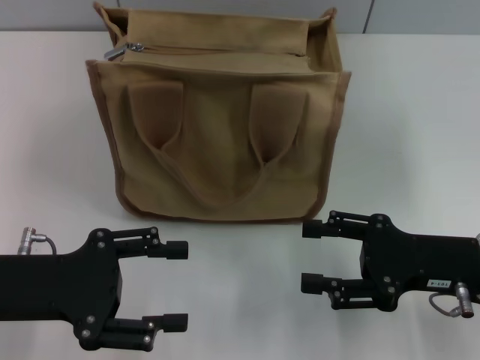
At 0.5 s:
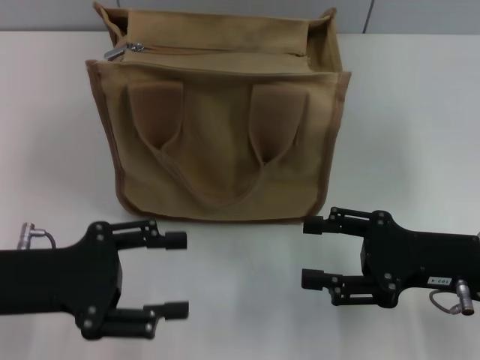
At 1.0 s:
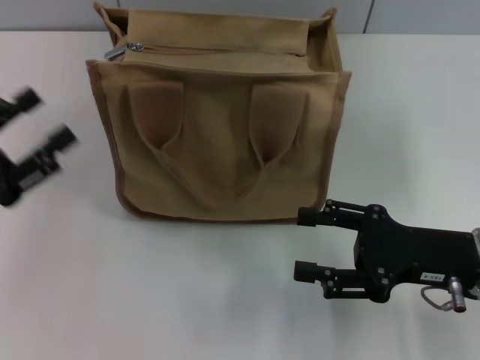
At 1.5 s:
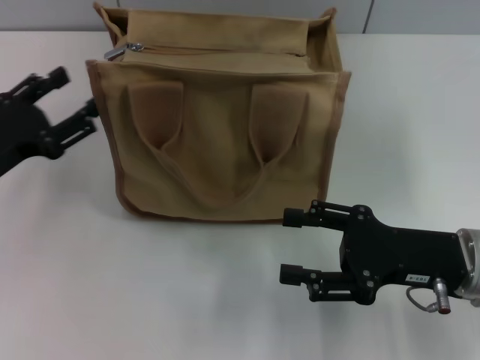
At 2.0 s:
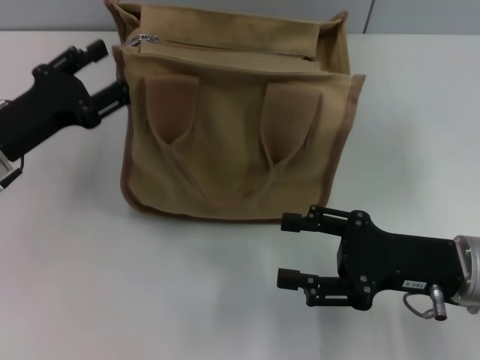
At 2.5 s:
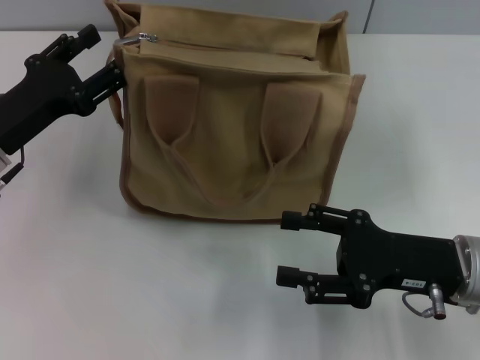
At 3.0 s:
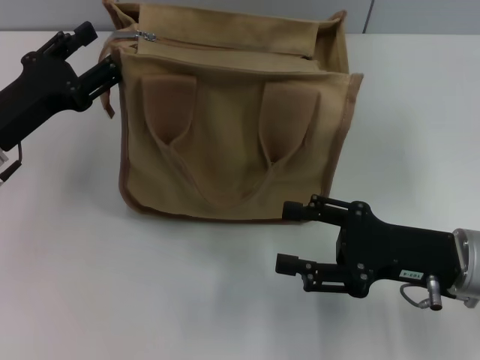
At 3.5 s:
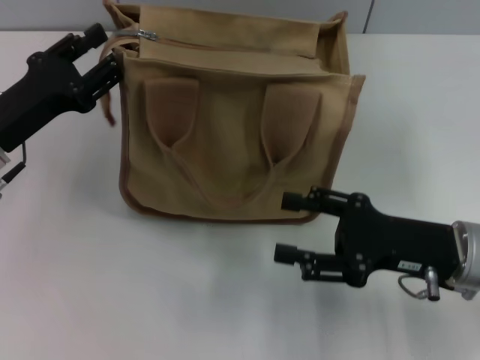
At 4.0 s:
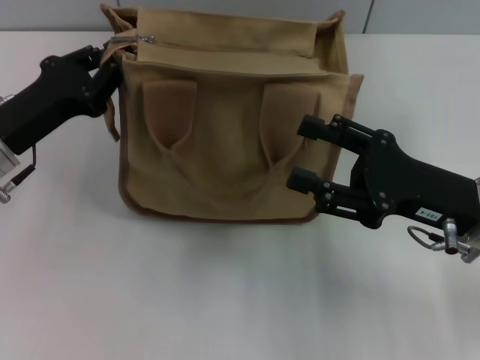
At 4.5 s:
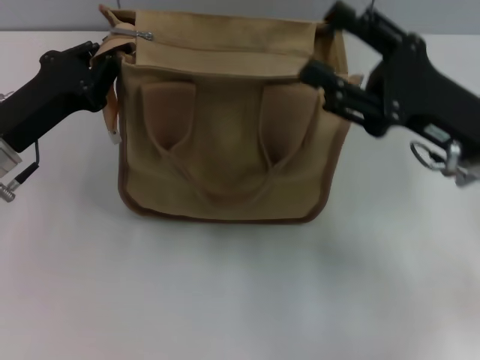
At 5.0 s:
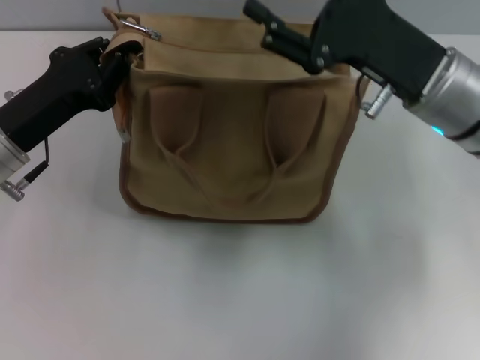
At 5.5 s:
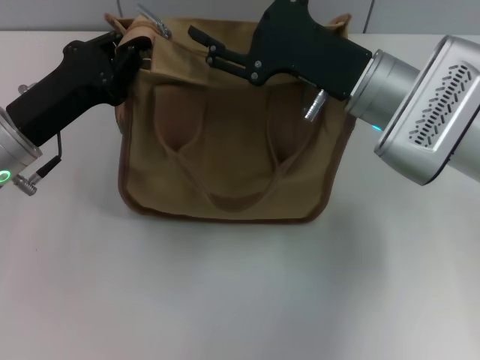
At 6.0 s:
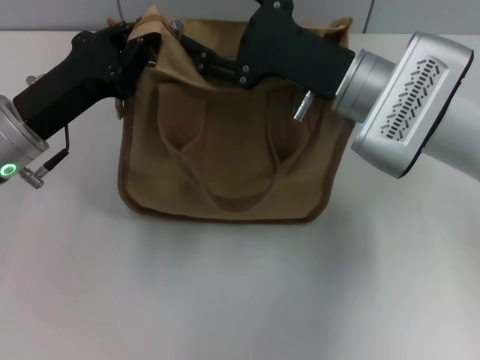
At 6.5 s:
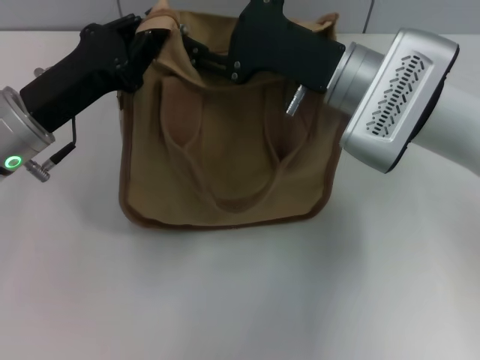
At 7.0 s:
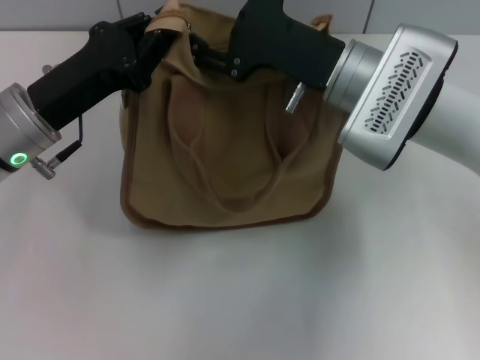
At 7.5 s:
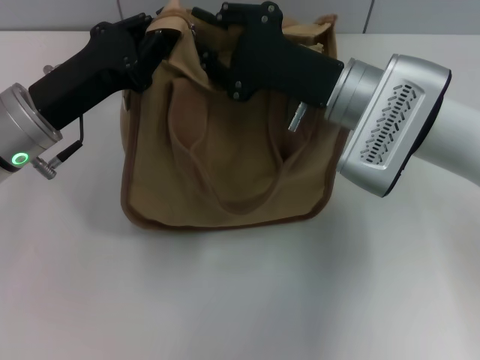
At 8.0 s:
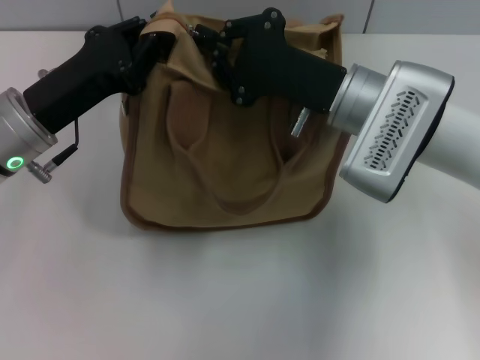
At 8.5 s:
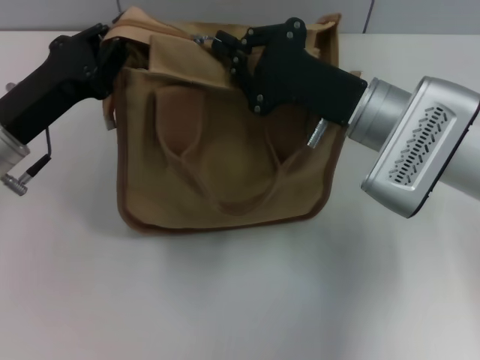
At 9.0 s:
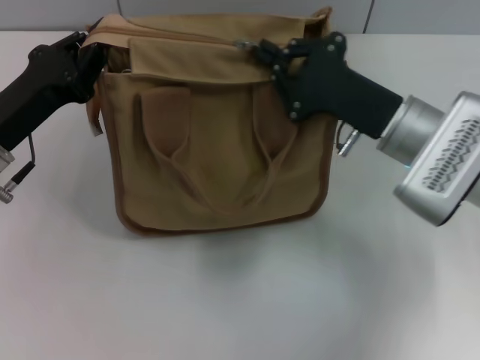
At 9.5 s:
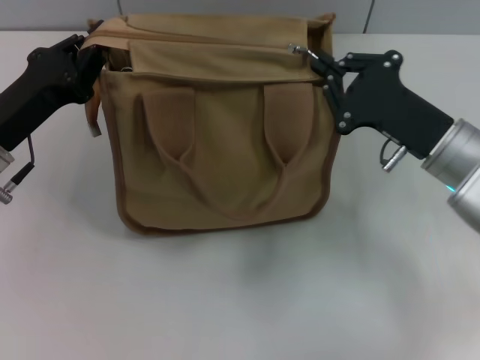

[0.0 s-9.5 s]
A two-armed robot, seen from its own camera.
0.0 to 2.0 s: The left gripper is displaced forward by some 10 cm.
2.0 to 4.0 s: The left gripper closes up.
4.0 to 5.5 s: The right gripper heads forward and to the left, covering some 15 cm.
5.5 to 7.5 s: The right gripper closes up.
7.5 to 9.5 s: The left gripper ends up some 5 cm from where it was; the right gripper moves to the right, about 10 cm, and closes its fingers.

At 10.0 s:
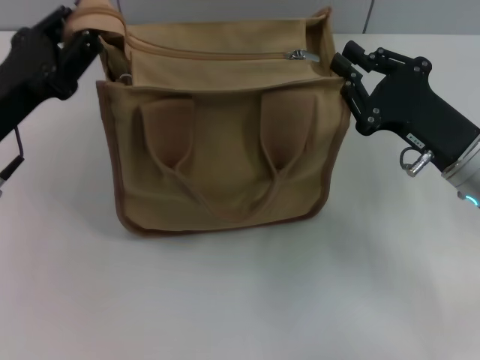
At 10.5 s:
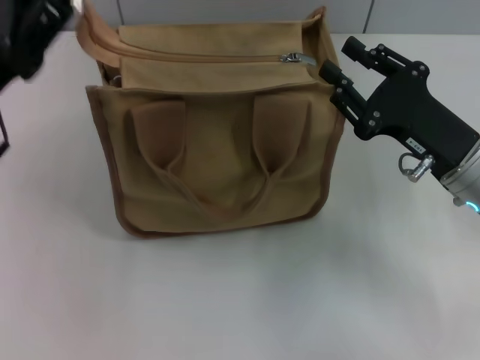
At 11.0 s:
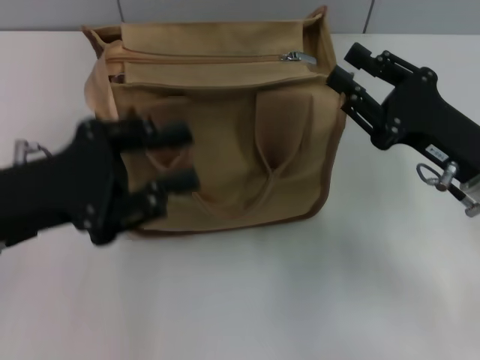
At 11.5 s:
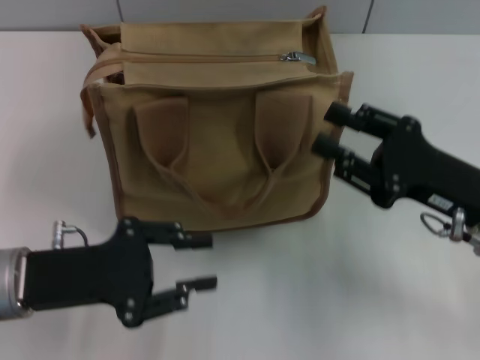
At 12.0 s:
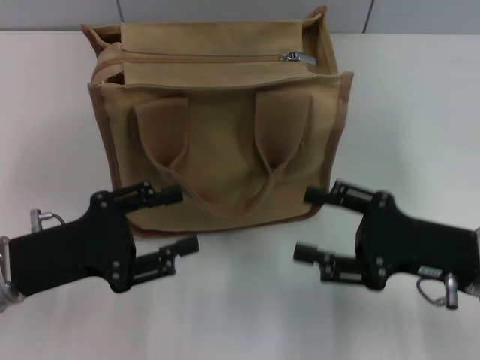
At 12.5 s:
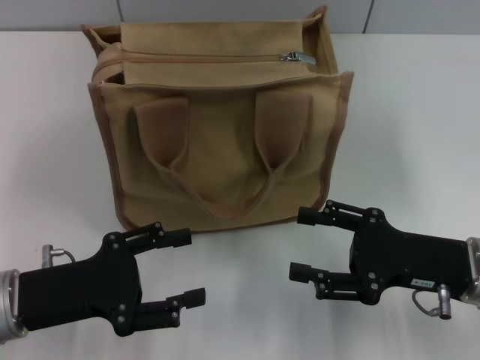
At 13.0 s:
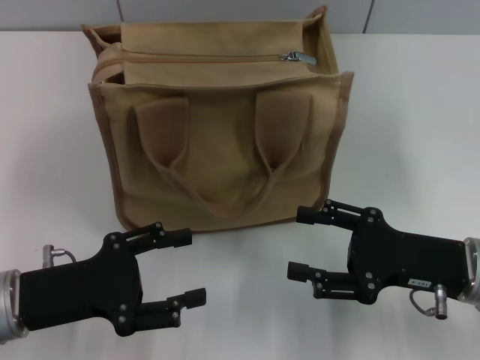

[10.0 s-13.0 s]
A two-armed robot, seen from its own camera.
Step, 10.0 to 11.0 s: Grab the zipper with your left hand.
10.0 to 11.5 s: The right gripper opens its fingers. The left gripper moves backward, some 5 cm, and opens its fingers.
11.5 to 13.0 s: The left gripper opens its fingers. Meanwhile the right gripper opens its fingers.

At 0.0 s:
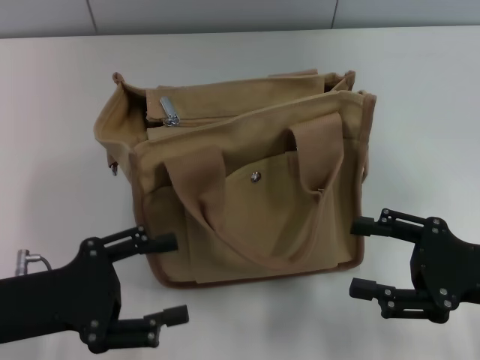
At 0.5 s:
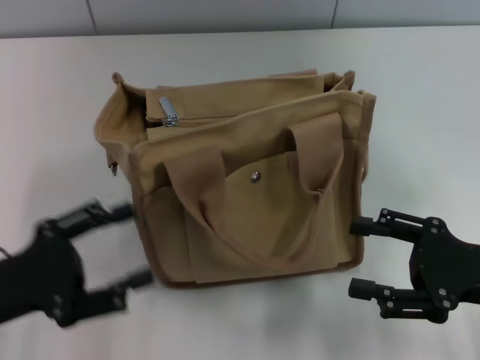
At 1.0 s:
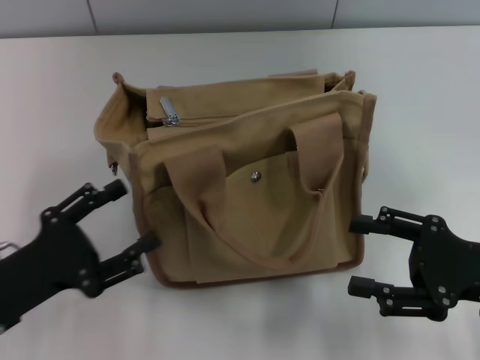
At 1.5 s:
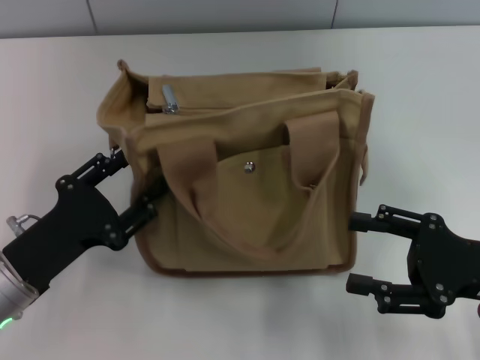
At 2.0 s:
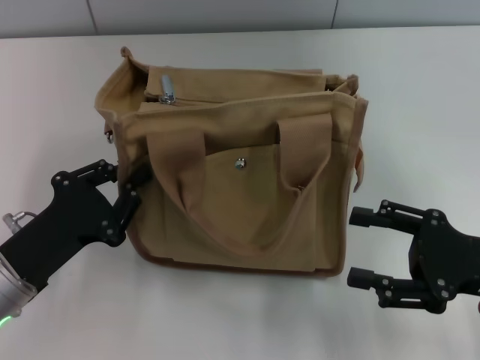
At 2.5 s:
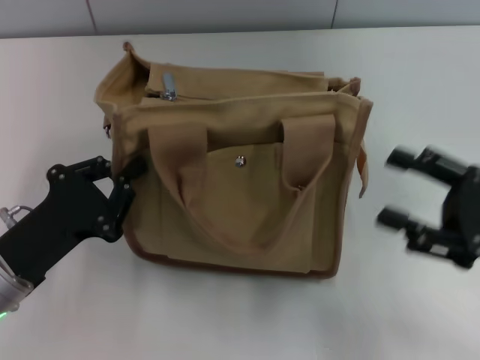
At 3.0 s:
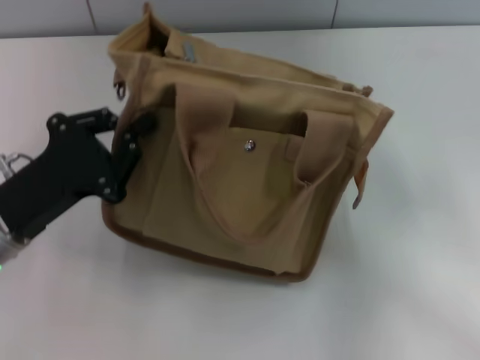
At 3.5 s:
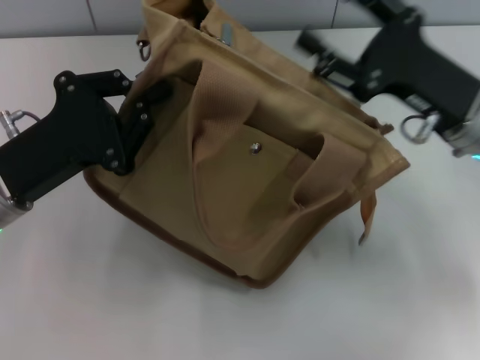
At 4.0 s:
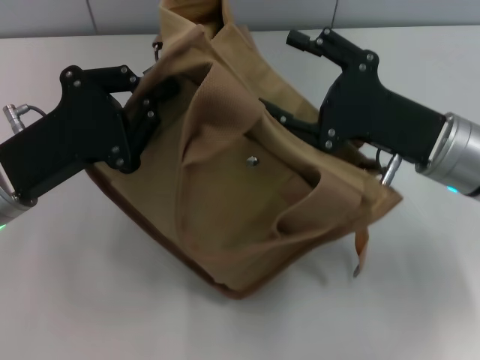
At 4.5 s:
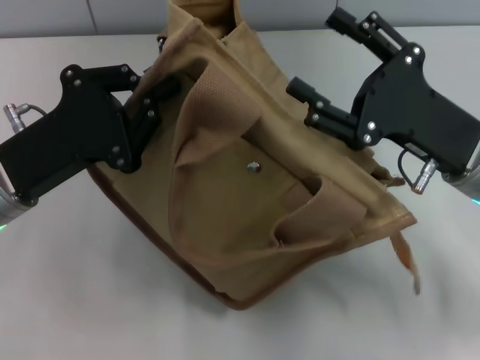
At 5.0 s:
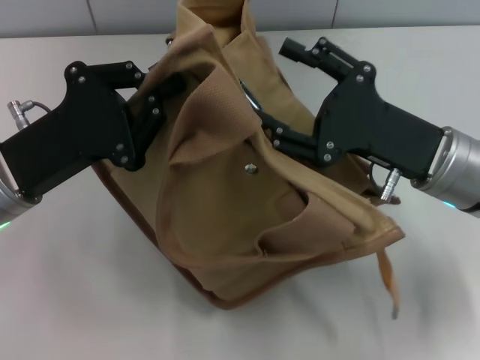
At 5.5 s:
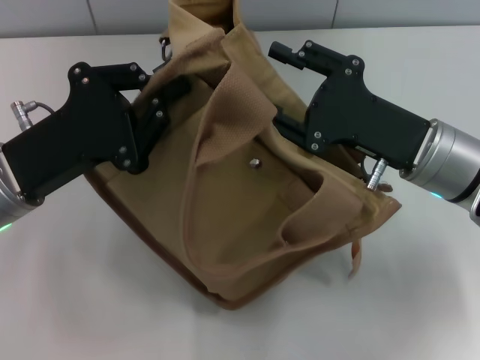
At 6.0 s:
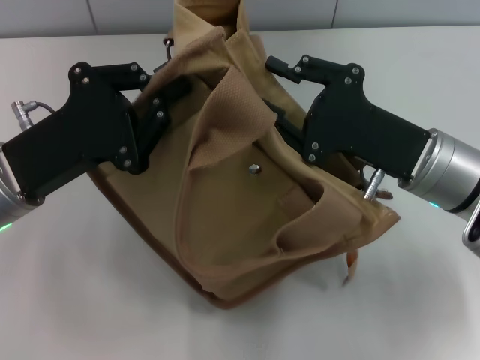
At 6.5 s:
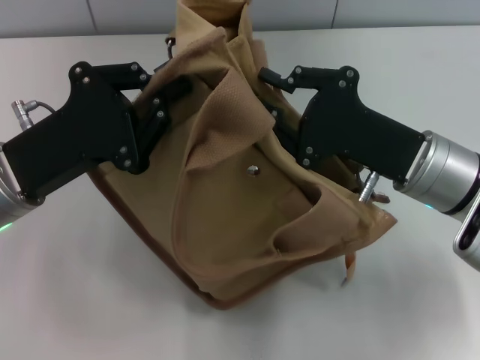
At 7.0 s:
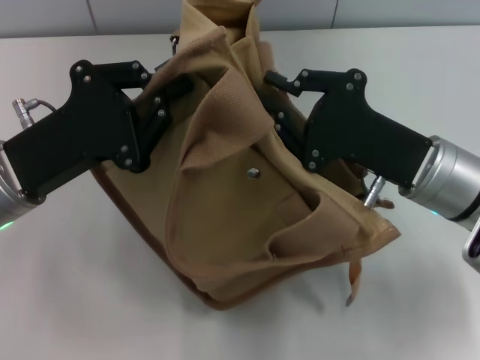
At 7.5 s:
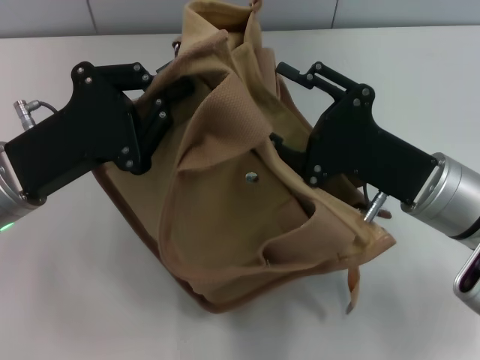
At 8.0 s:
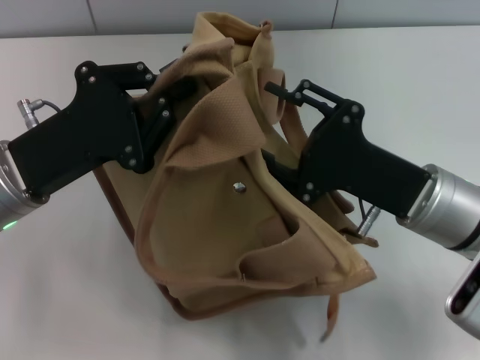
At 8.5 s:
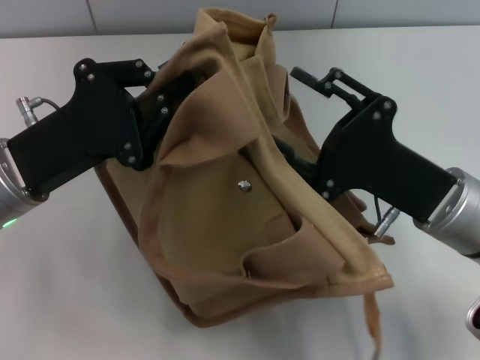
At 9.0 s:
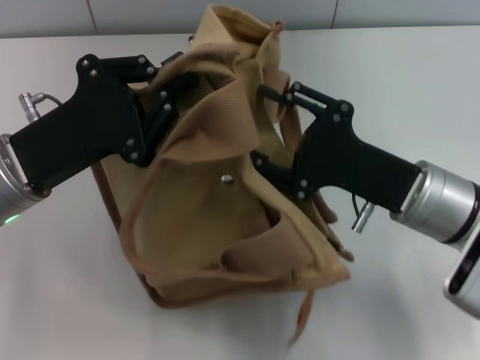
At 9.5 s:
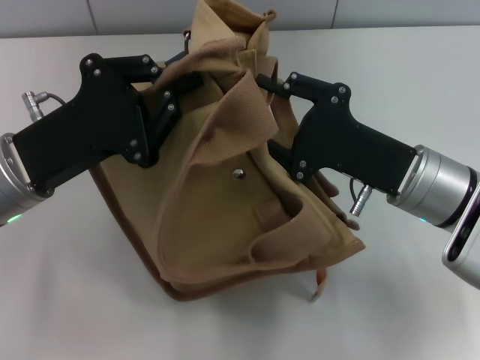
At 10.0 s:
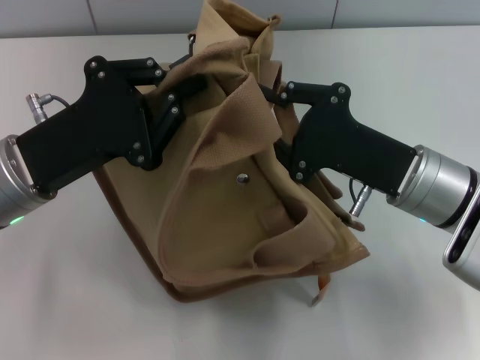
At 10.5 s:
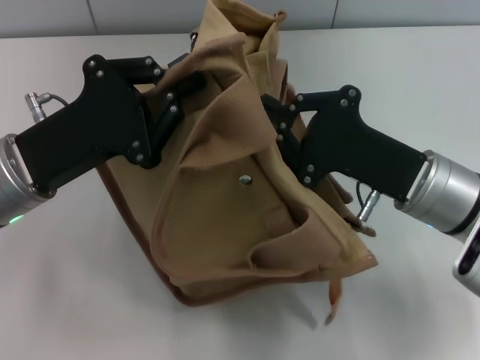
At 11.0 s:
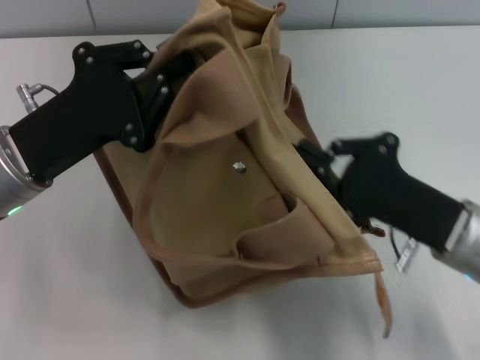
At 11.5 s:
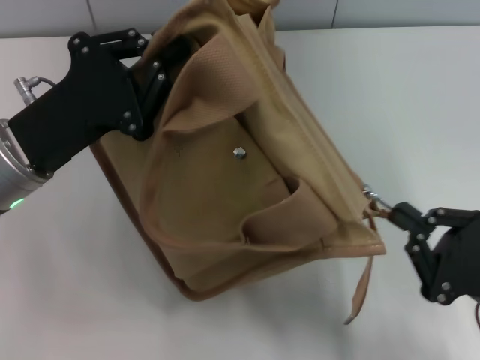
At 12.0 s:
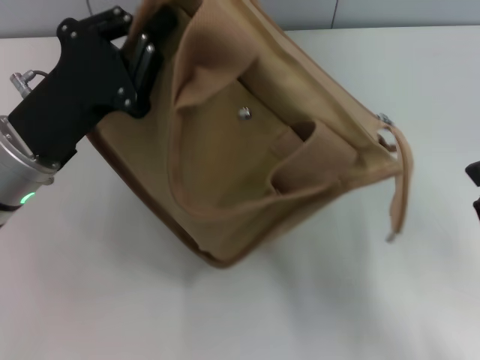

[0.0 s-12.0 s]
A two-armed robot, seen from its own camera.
Step, 0.0 to 11.5 s: Pull open the zipper with your right hand.
0.0 to 2.0 s: The left gripper closes its fingers.
2.0 to 4.0 s: The left gripper travels upward and forward by approximately 10 cm, and closes; the right gripper shifts about 10 cm forward and to the left.
4.0 to 6.0 s: The right gripper closes.
10.0 to 12.0 s: The right gripper goes roughly 20 cm backward and to the right.

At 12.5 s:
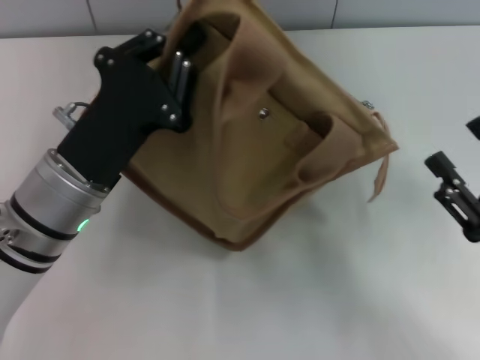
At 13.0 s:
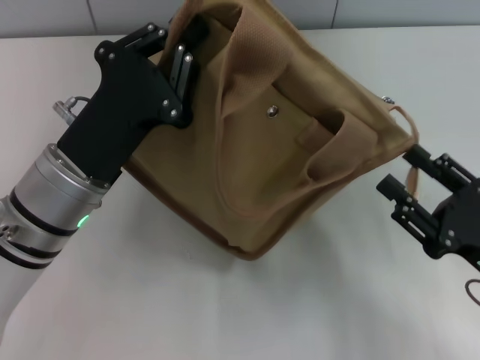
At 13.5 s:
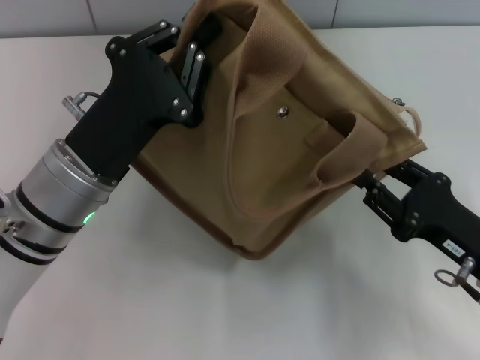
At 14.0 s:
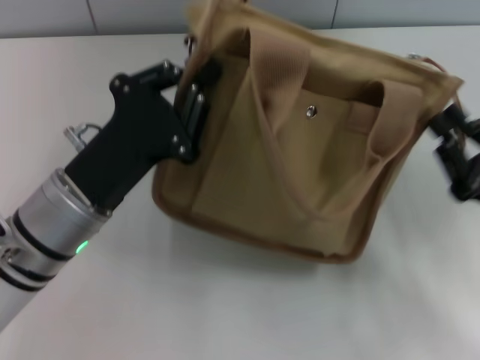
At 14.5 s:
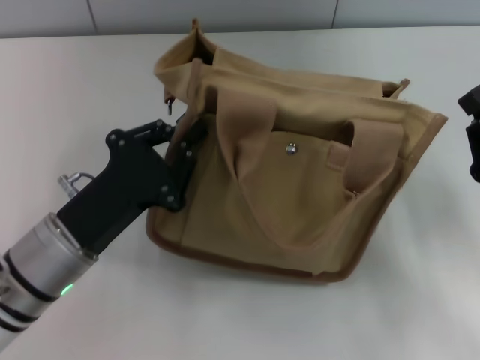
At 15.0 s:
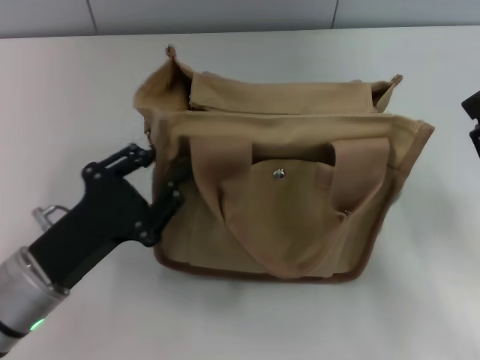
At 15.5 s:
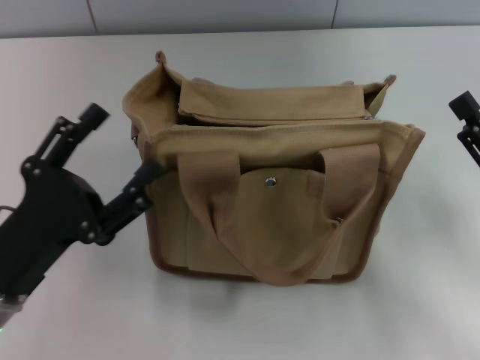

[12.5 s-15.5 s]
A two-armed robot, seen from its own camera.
Step, 12.5 to 15.5 s: Grab the bag with your left hand.
14.0 to 15.5 s: The left gripper heads backward and to the left, covering about 10 cm, and opens.
